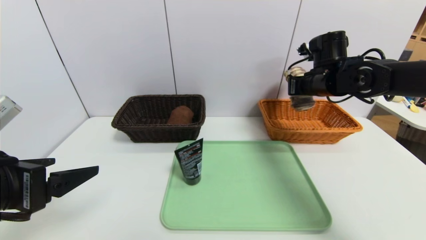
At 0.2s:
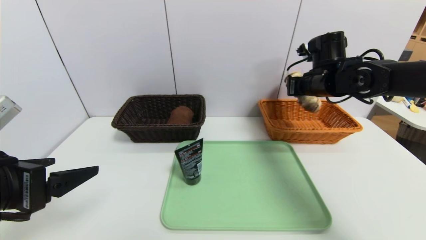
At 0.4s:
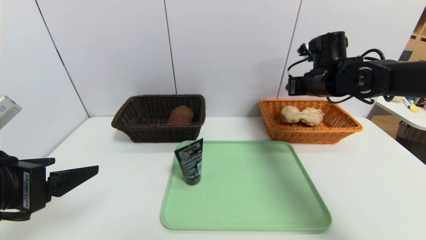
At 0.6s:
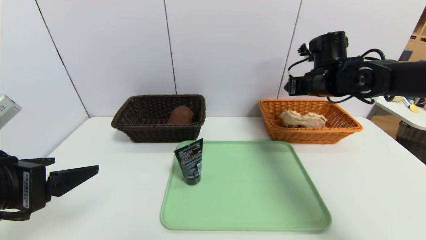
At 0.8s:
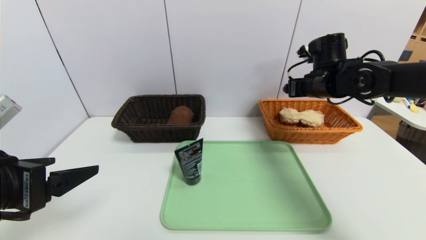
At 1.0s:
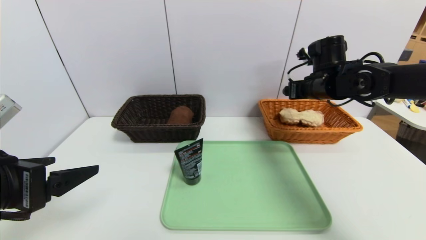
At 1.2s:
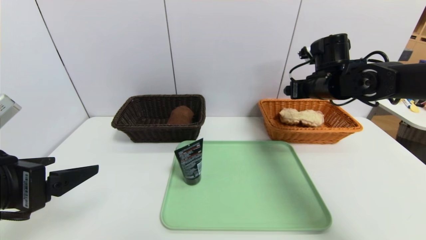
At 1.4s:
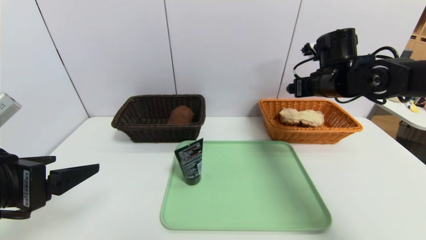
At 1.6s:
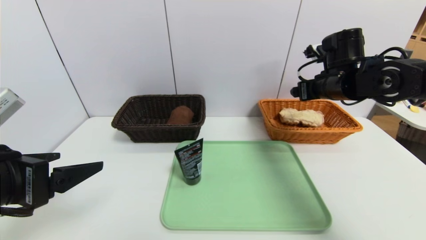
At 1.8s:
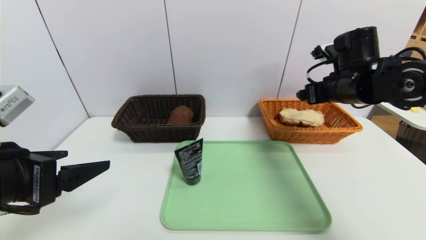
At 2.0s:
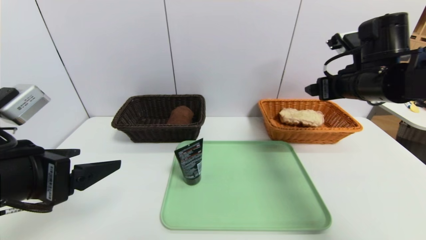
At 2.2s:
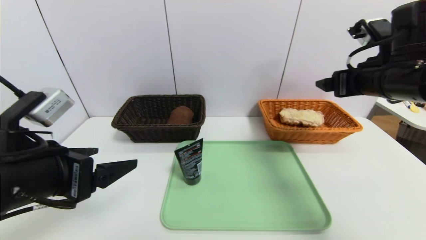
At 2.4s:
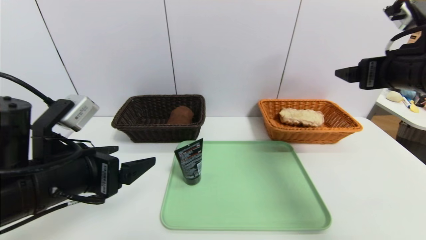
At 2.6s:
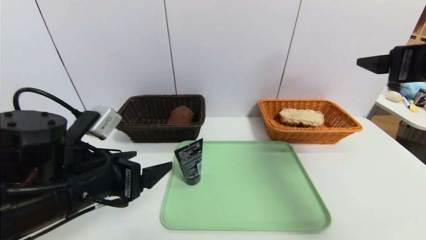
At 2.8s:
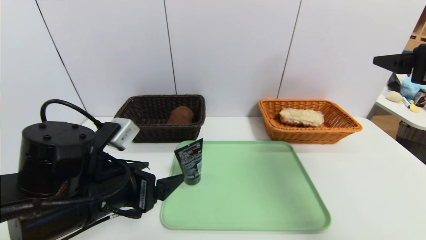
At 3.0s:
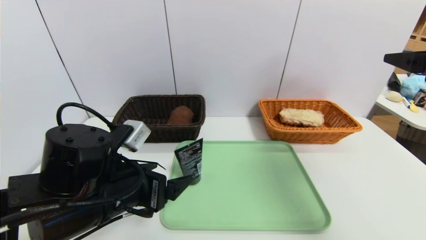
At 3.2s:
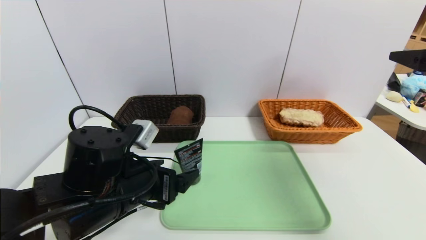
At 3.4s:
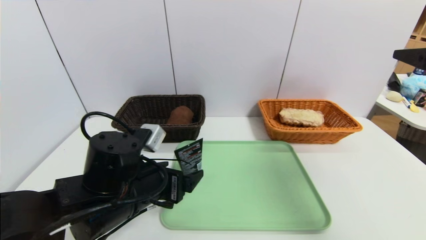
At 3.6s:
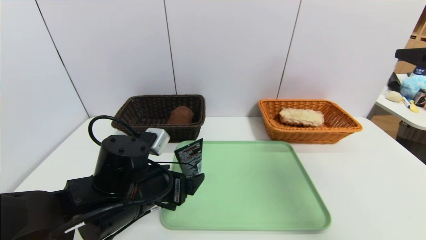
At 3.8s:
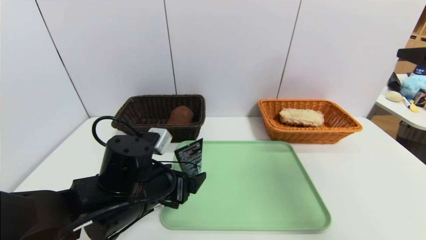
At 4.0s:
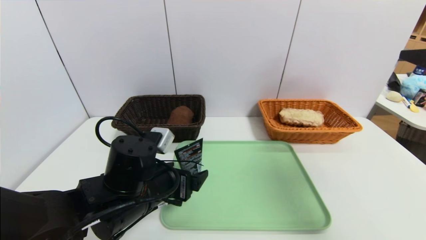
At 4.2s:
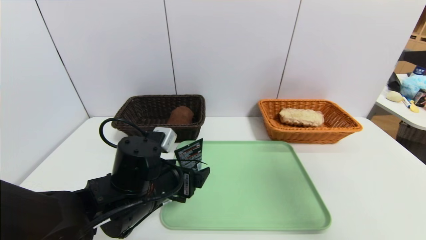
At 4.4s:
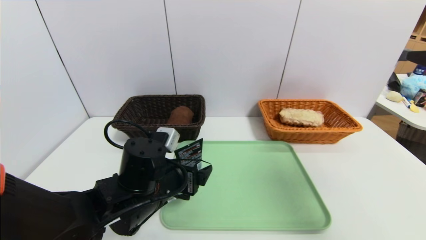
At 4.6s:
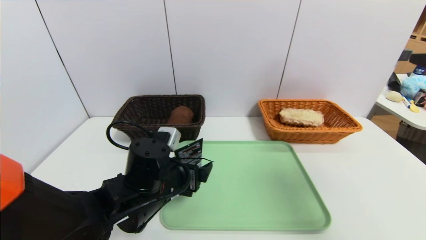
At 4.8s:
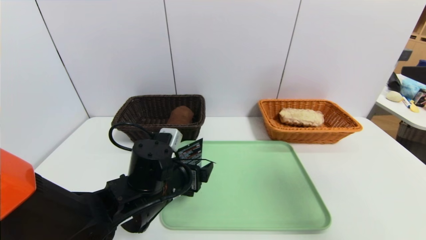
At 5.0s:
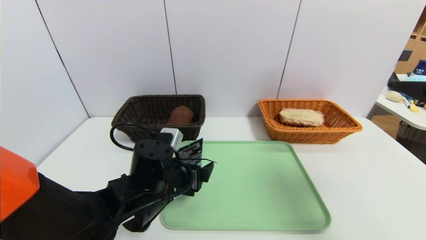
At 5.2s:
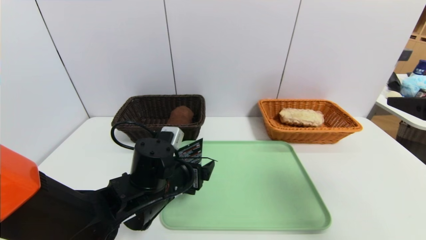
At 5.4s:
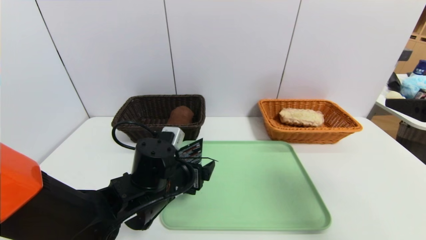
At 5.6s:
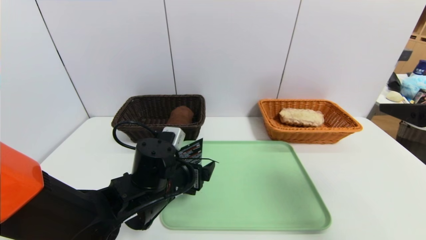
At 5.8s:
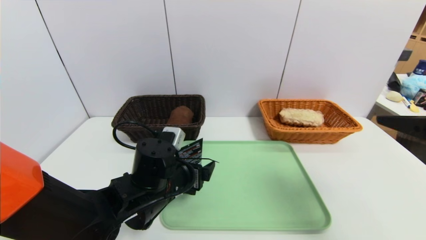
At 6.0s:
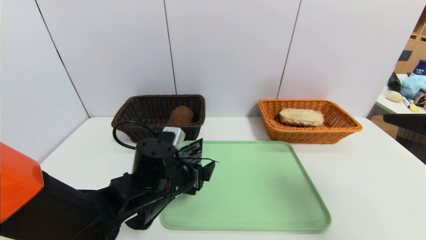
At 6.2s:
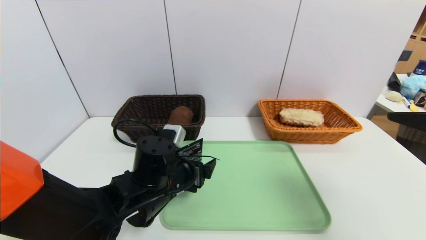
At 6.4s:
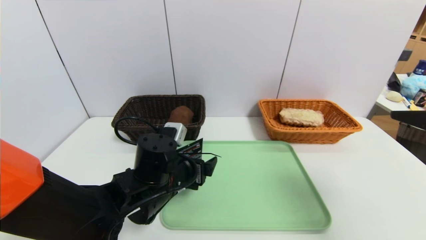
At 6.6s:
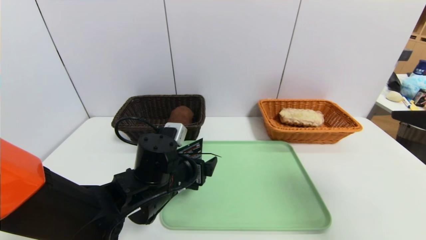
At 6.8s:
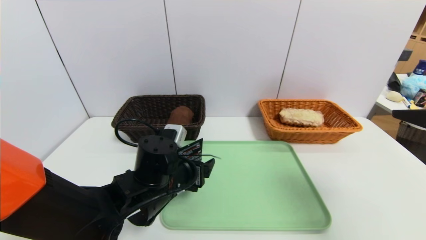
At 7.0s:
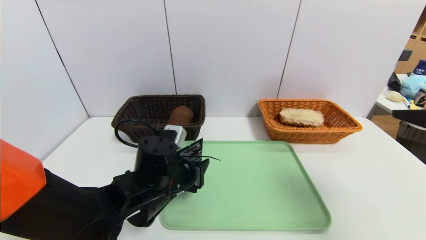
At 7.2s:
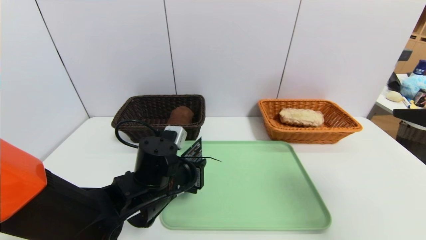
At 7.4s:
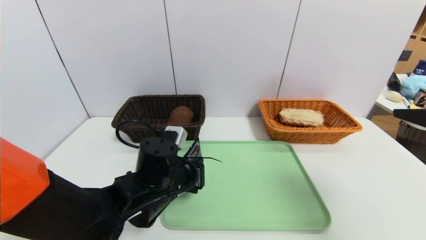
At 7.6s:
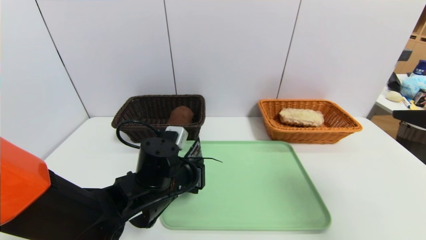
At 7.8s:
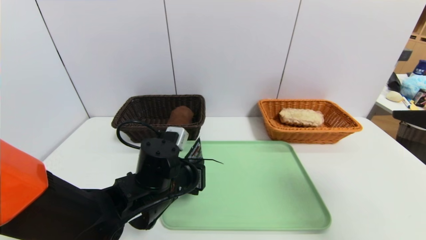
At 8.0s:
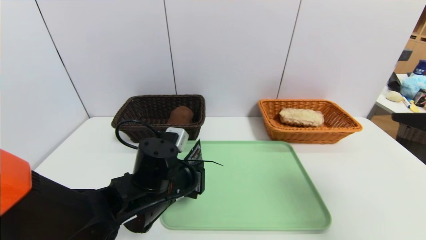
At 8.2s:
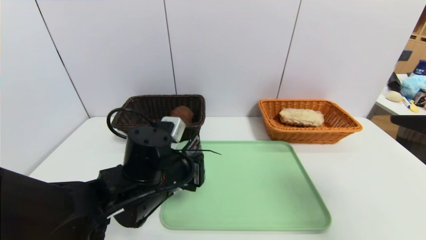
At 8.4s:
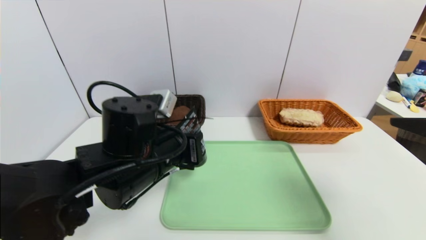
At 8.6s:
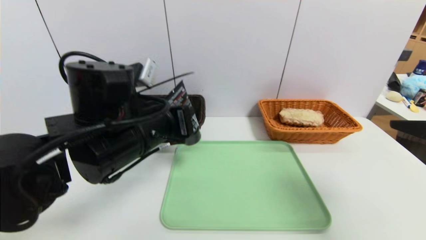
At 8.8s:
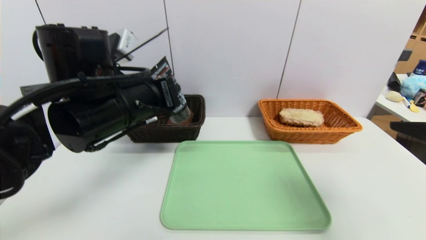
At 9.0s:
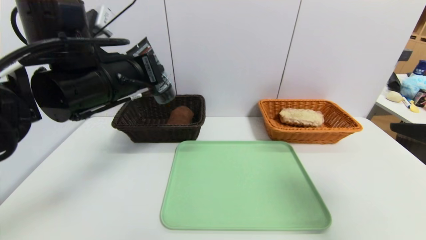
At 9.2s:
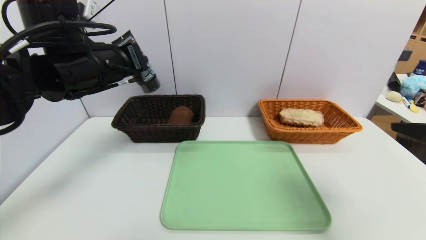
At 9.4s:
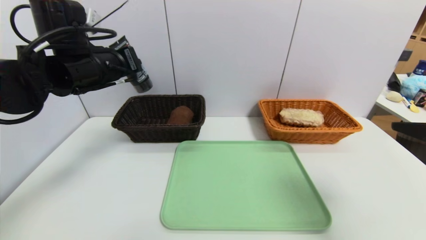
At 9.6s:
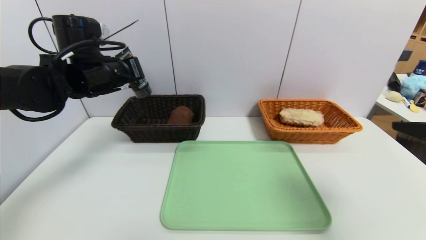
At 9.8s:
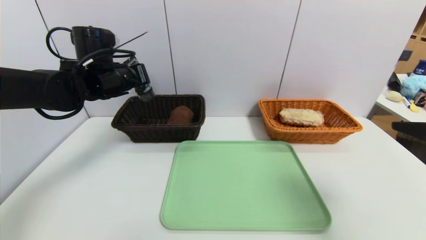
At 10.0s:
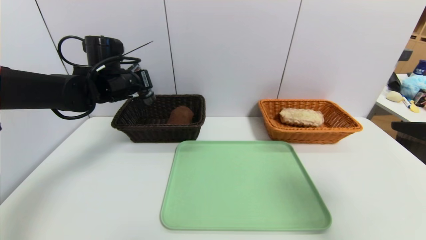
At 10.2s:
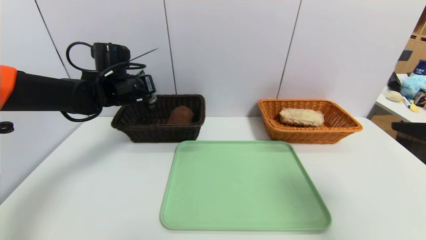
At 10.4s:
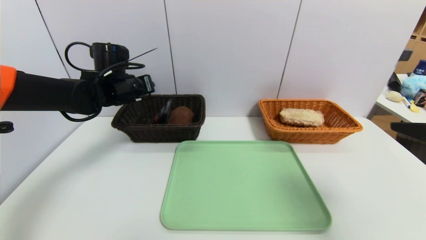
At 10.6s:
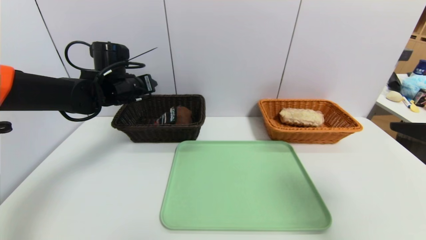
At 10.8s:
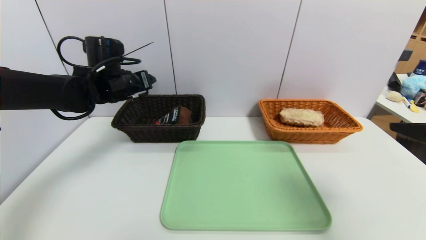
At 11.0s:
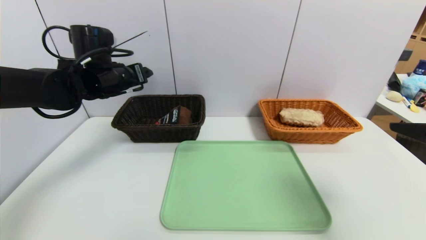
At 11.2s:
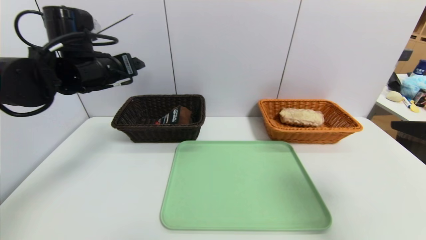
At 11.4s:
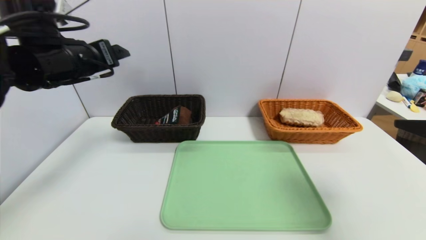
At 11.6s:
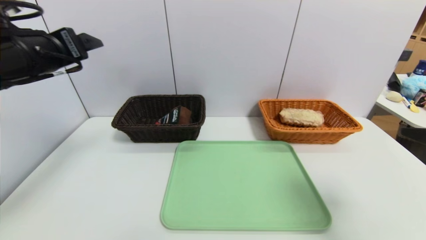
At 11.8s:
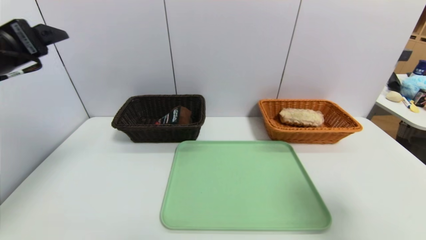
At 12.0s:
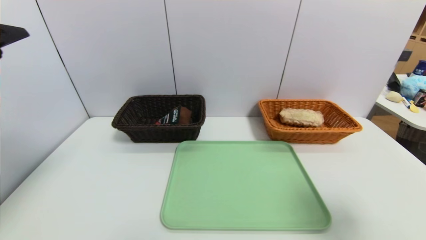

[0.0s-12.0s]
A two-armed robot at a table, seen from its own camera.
Task of the whole recording: place the food in the right basket with the right gripper, and place the non food items in the left basket with the left gripper.
Step, 0.8s to 10.8s: Grasp the soft cleanser and put it in the left basket.
0.0s to 1.6s: The right gripper opens its fingers.
1.6s to 3.0s: The left gripper heads to the right, downward and forward, covering roughly 15 cm, while the right gripper heads backward and upward, covering some 20 cm.
3.0s to 4.4s: The left gripper goes roughly 5 cm downward.
6.0s to 7.6s: The left gripper closes.
7.6s to 9.0s: The left gripper travels upward by some 20 cm.
9.0s to 10.4s: The left gripper shifts some 15 cm forward and downward, and opens.
10.4s to 12.0s: The left gripper moves backward and upward, approximately 25 cm, and opens.

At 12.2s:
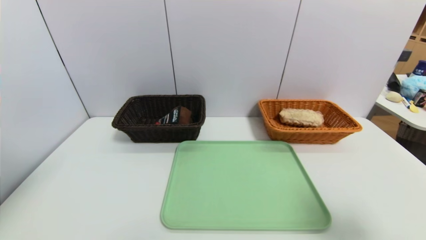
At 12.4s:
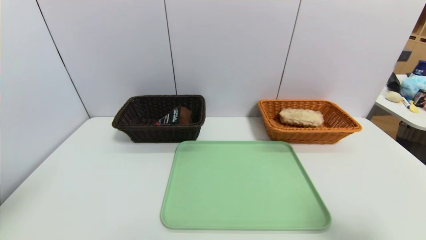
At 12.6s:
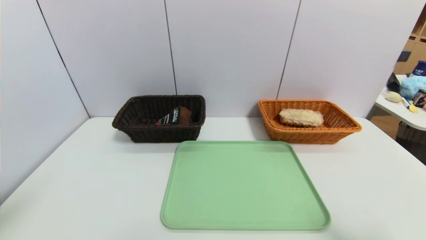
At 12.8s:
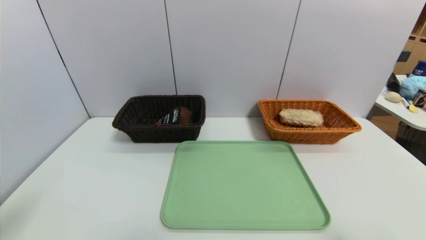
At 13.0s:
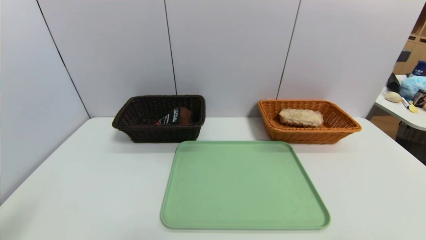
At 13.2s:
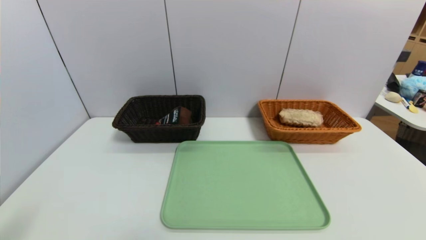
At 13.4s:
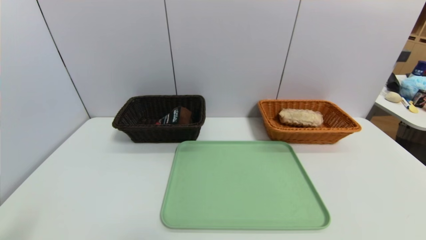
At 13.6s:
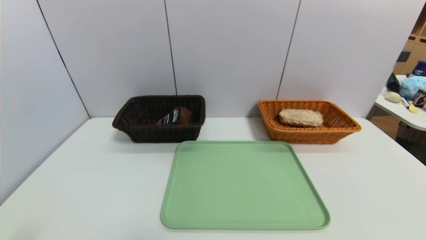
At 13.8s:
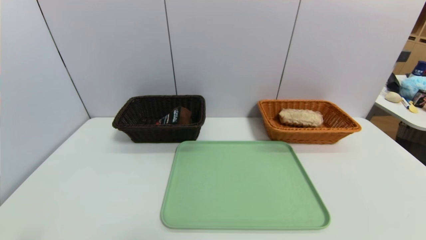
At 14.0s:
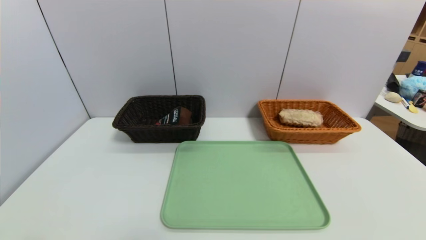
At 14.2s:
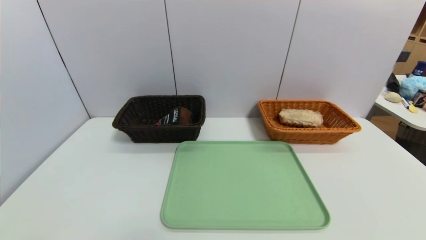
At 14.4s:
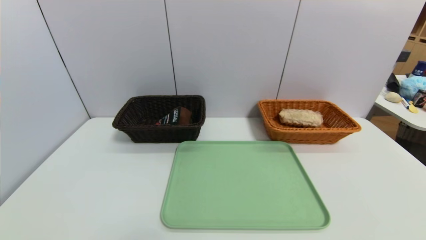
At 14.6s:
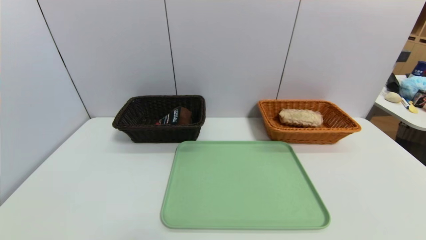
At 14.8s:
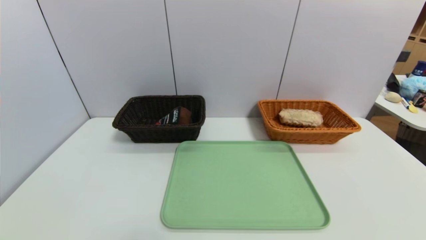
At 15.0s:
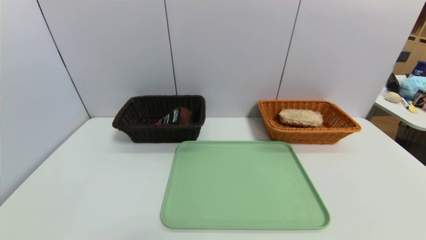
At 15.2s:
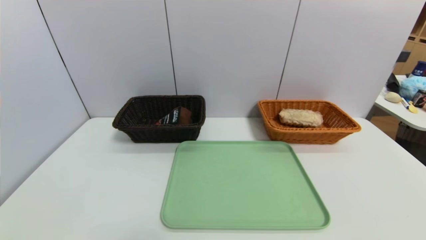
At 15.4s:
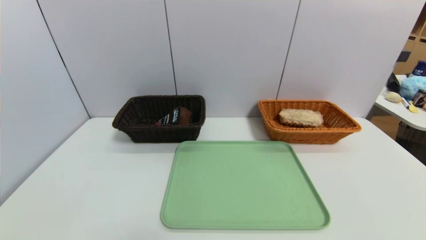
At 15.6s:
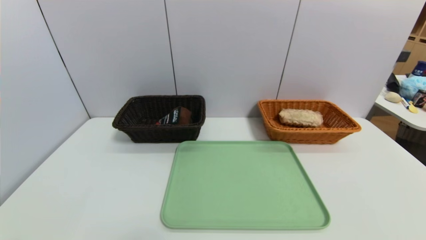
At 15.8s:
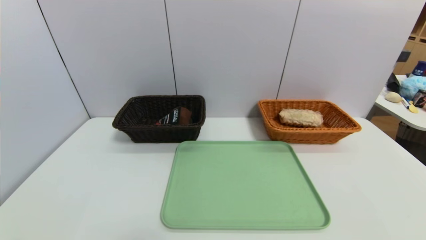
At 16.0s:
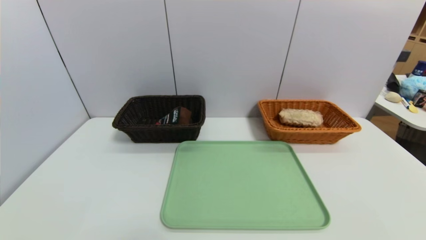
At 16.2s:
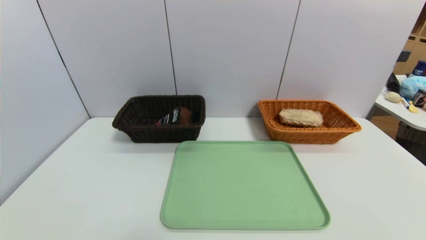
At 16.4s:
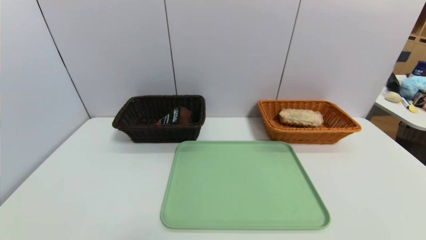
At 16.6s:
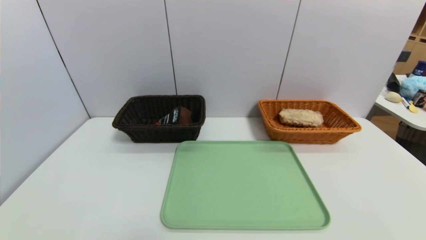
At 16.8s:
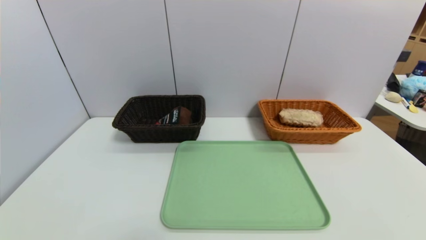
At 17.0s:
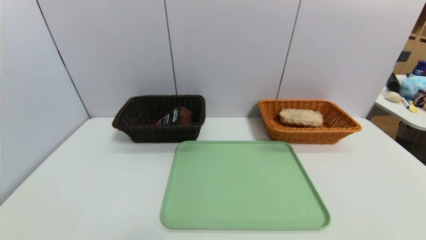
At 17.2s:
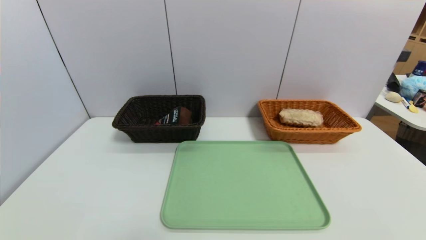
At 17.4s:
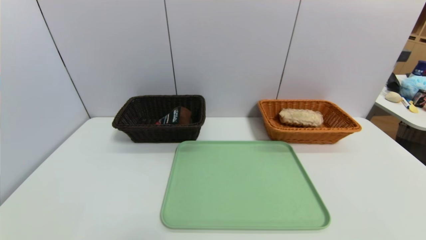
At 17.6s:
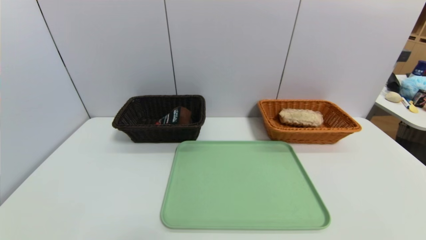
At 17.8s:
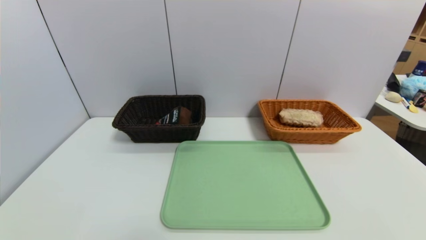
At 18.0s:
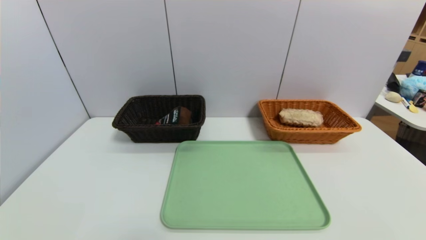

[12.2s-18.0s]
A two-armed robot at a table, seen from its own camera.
Task of the whole recording: place the food in the right basket with the right gripper, and place the non food items in the left basket with the left gripper.
12.2s to 13.6s: The grippers both shift backward and downward by some 15 cm.
16.6s to 18.0s: The two grippers keep their place.
